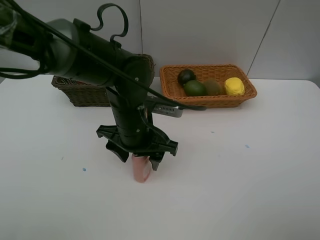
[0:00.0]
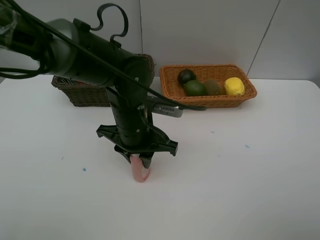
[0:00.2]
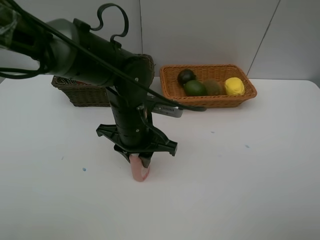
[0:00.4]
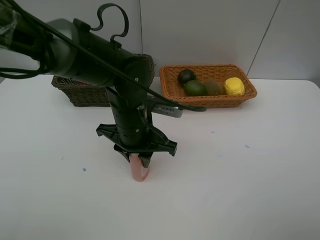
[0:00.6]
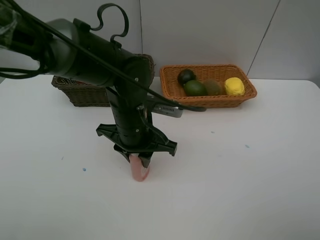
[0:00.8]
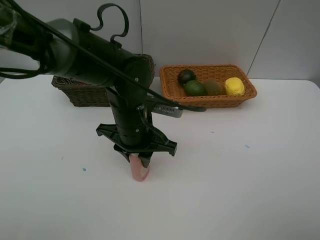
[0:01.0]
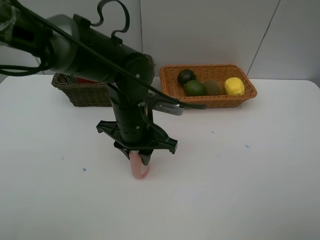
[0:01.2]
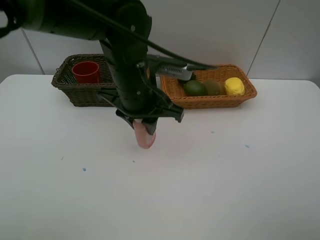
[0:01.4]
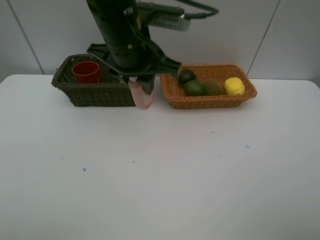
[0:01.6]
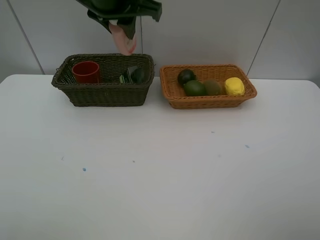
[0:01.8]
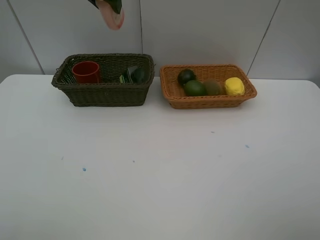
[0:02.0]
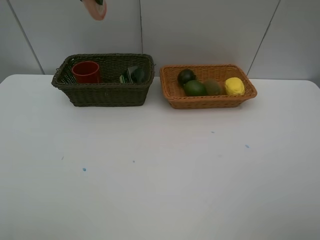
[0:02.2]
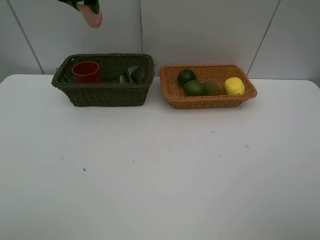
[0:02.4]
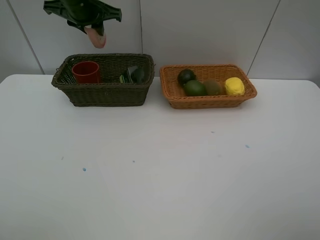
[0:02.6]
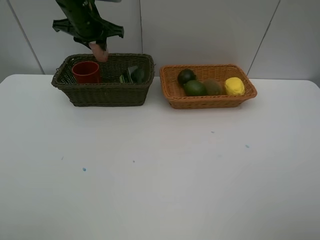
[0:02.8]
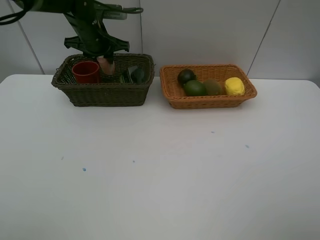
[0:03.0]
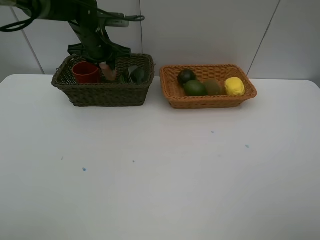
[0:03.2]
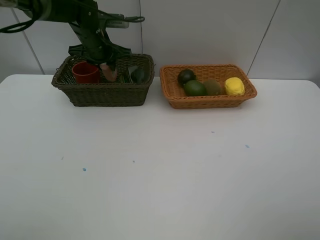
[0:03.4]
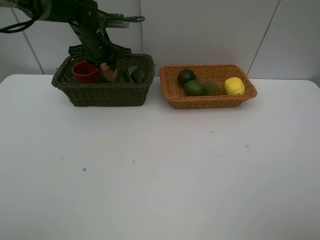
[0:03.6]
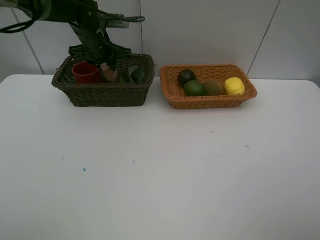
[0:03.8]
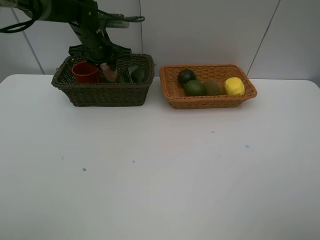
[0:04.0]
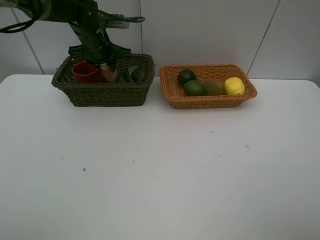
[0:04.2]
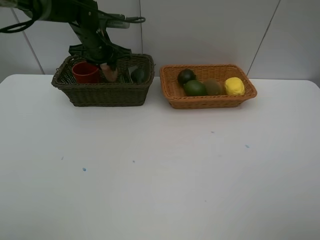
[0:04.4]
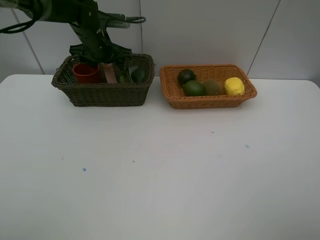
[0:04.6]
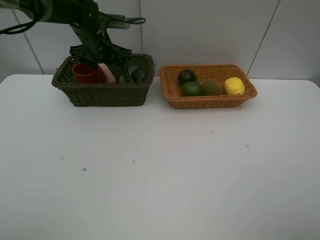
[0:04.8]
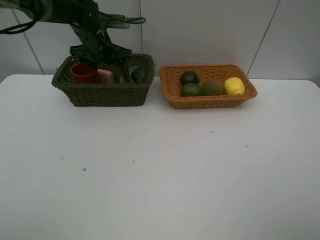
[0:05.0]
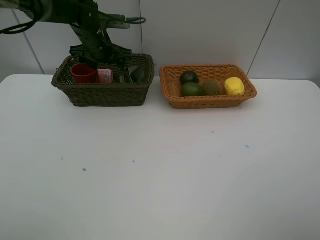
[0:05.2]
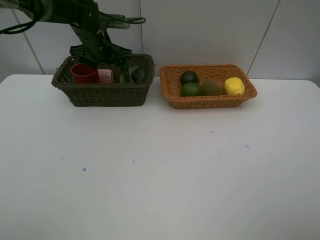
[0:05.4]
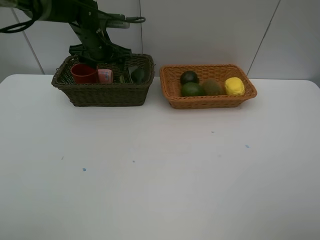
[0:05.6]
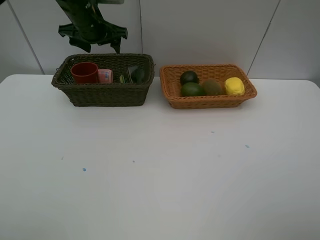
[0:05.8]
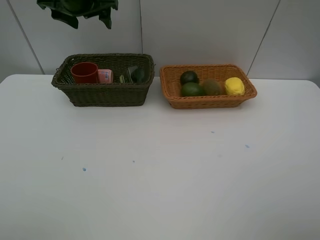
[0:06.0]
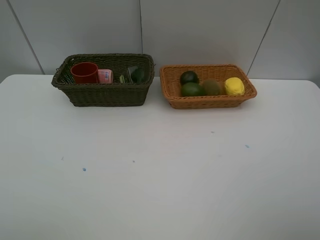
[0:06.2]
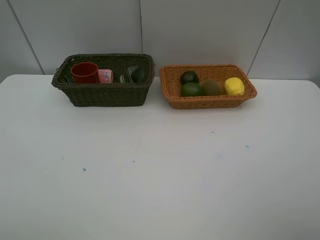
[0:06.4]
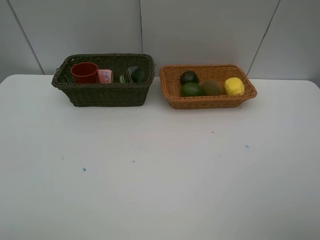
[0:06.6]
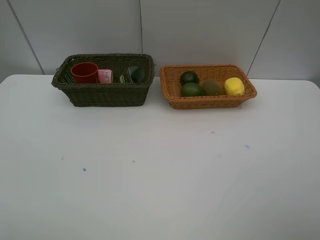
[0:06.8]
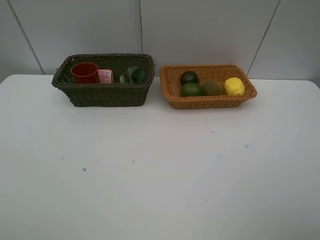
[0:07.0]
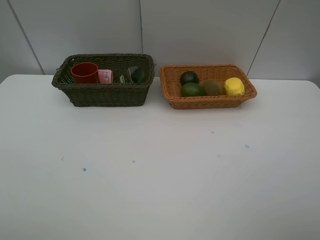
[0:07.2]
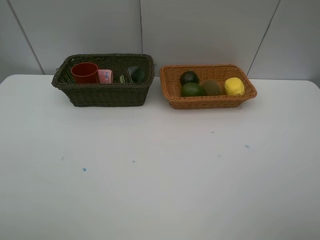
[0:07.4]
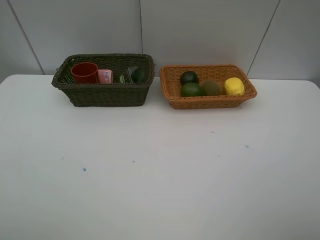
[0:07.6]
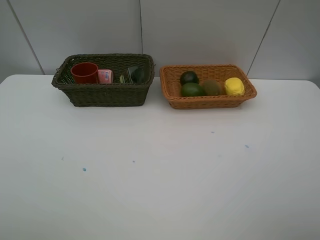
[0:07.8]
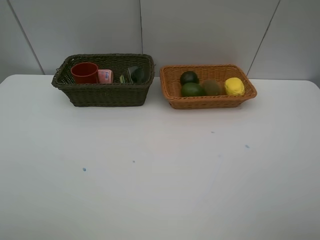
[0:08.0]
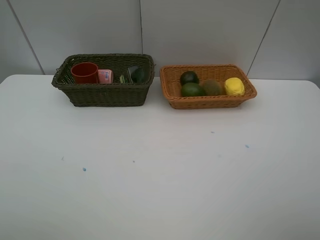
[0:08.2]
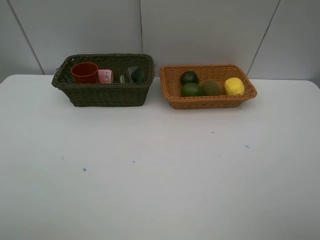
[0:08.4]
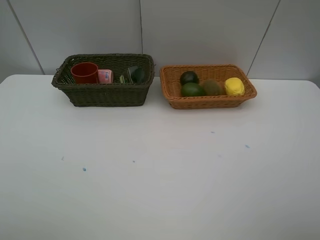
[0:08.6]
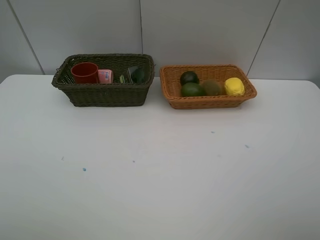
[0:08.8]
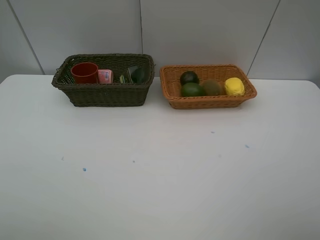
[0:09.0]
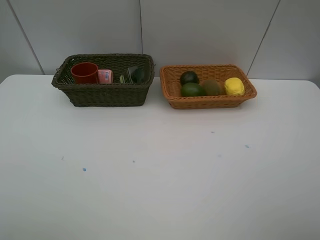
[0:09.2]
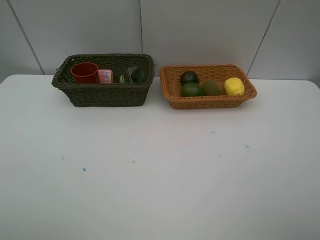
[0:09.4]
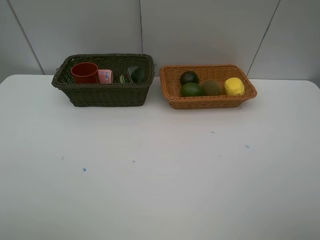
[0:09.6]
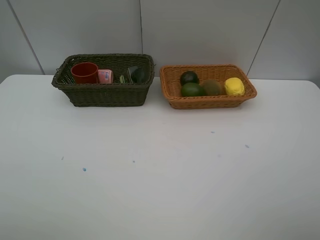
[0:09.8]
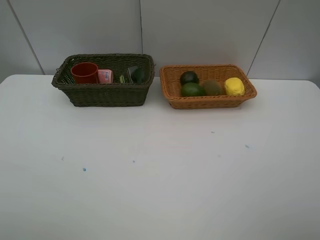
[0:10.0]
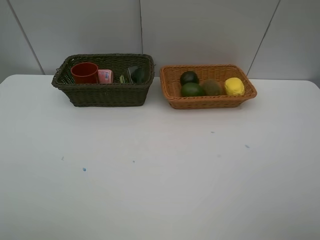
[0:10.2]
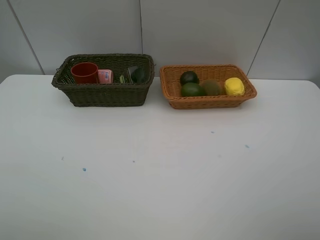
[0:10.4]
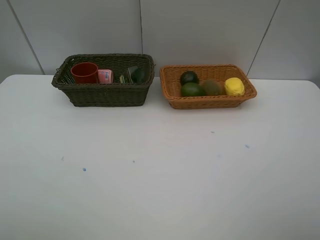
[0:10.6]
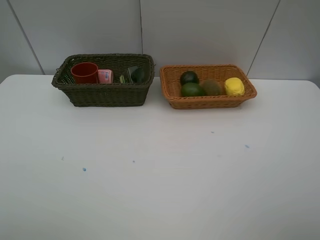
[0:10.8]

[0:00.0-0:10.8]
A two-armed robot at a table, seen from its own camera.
Task of the whole recording: Place multiple objects separately in different baskets.
Step, 0:01.4 to 0:05.6: Place the laundry detergent in the dark basket with left gripper.
0:00.0 to 0:01.6: The left gripper moves upward, about 15 cm, and closes.
0:01.6 to 0:03.0: The left gripper travels forward, to the left and downward by approximately 20 cm.
0:03.0 to 0:04.6: The left gripper opens.
0:04.6 to 0:06.2: The left gripper travels upward and backward by roughly 25 cm.
0:09.2 to 0:10.8: Both grippers stay about where they are.
